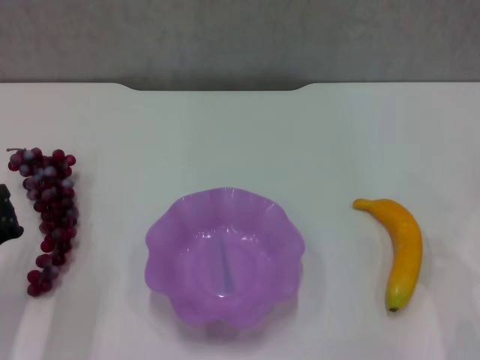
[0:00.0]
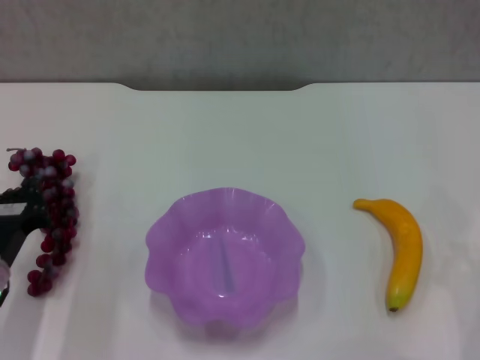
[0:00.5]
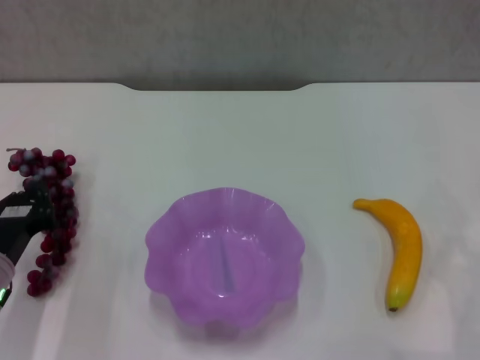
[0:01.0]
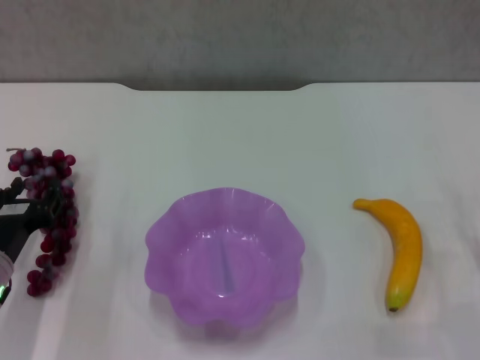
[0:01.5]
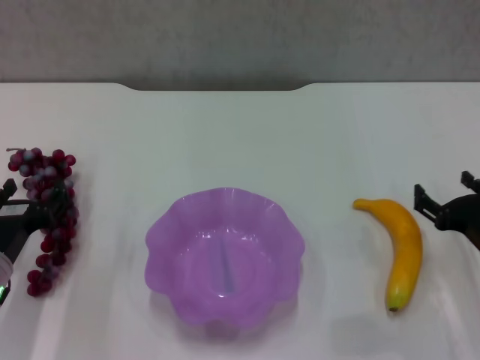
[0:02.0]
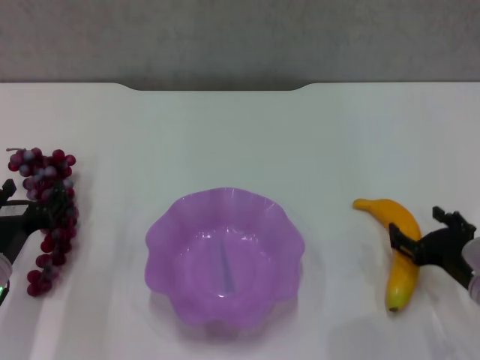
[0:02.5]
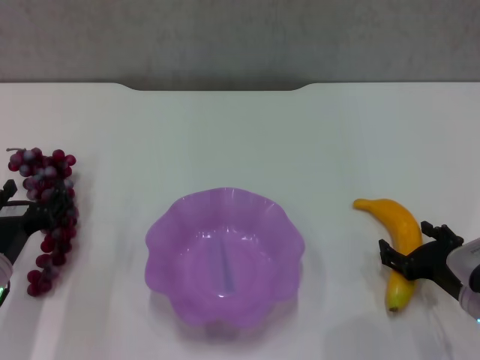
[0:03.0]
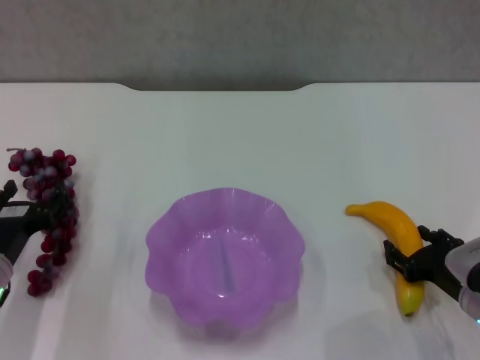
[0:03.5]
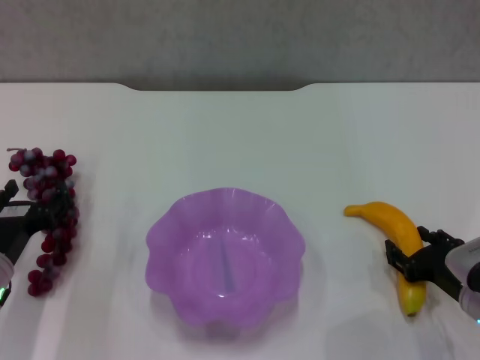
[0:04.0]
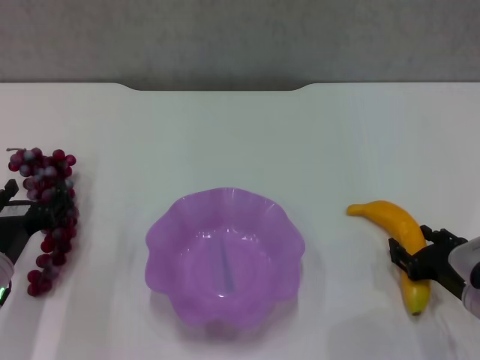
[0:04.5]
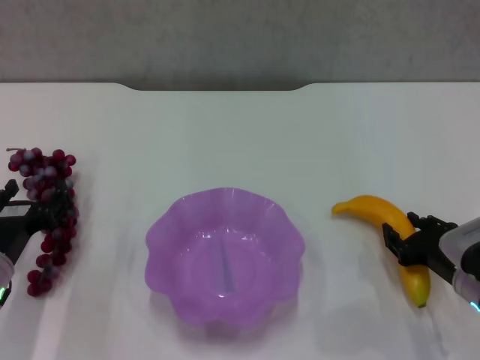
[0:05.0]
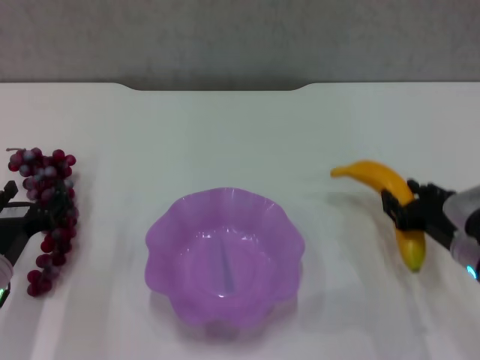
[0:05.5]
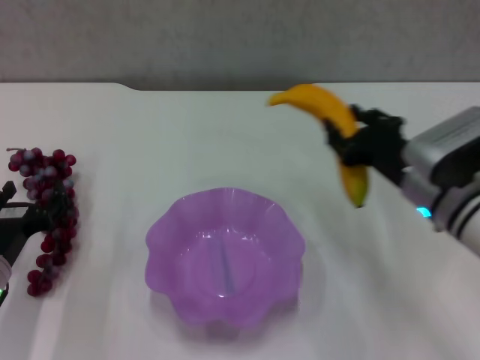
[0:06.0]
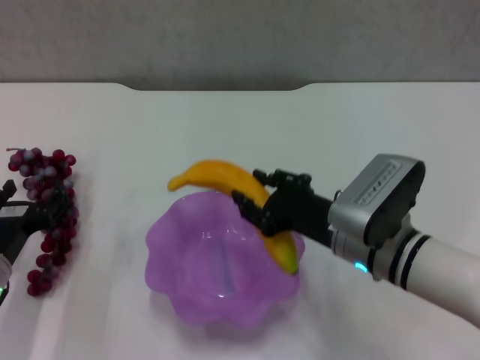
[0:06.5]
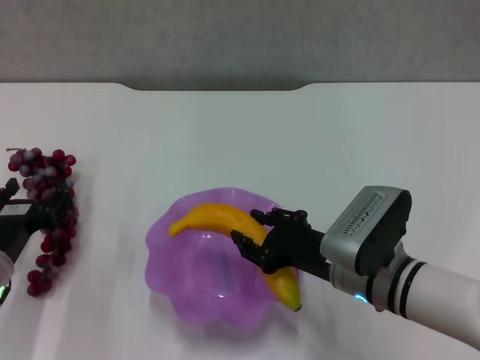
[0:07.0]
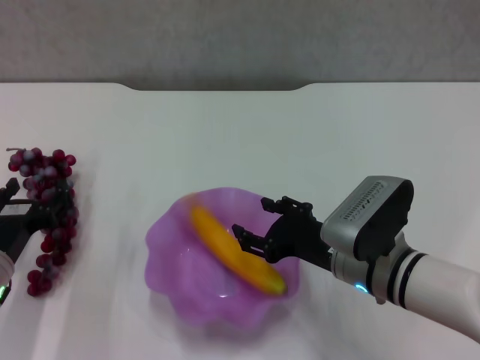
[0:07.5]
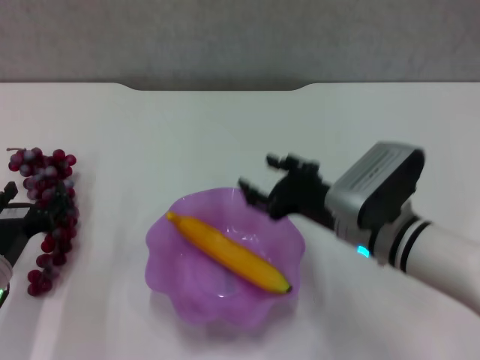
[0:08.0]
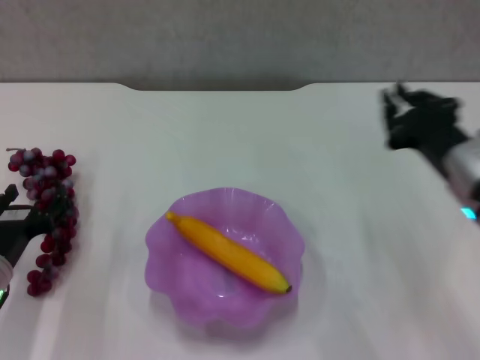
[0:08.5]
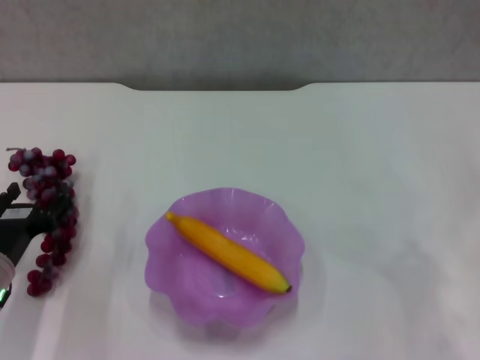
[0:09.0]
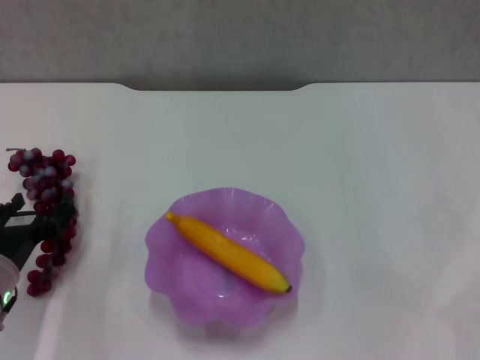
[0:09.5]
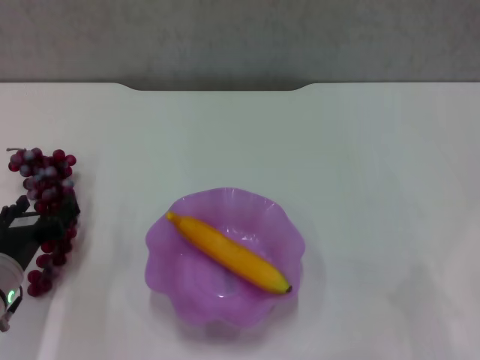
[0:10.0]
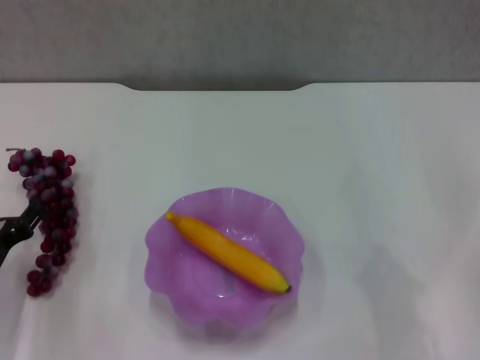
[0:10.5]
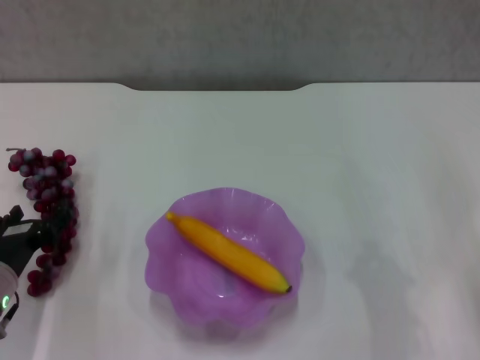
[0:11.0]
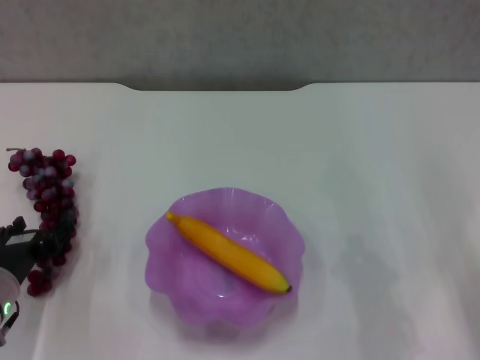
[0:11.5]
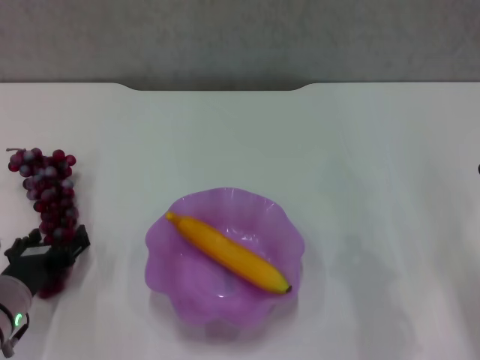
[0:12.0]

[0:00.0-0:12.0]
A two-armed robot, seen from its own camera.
Step, 0:00.0 to 0:04.0: Grasp the banana with right gripper.
Step, 0:04.5 to 0:07.5: Place the banana in the purple plate with right gripper.
0:00.0 to 0:02.0: The left gripper opens up; the right gripper travels to the left by roughly 5 cm, and opens.
0:02.0 to 0:04.0: There are only small adjustments of the grippers.
0:04.0 to 0:06.0: The right gripper is displaced upward, forward and to the left by approximately 15 cm.
0:06.0 to 0:08.0: The right gripper shifts about 5 cm to the left.
0:08.0 to 0:10.0: The right gripper moves to the right and backward, about 20 cm, and closes its fingers.
0:10.0 to 0:12.0: The right gripper moves about 5 cm.

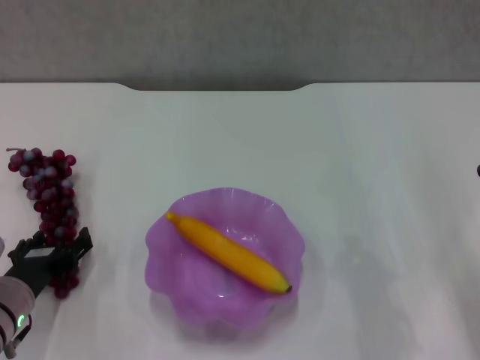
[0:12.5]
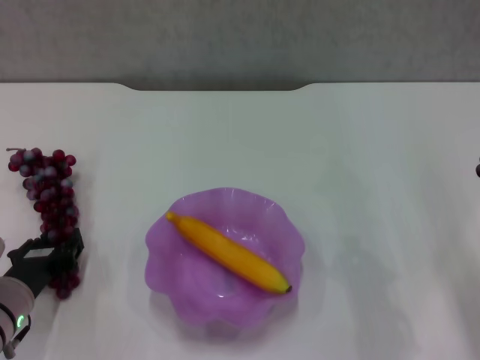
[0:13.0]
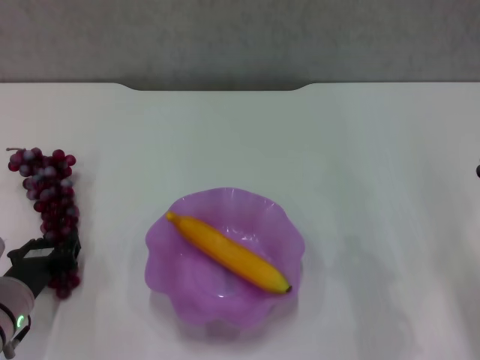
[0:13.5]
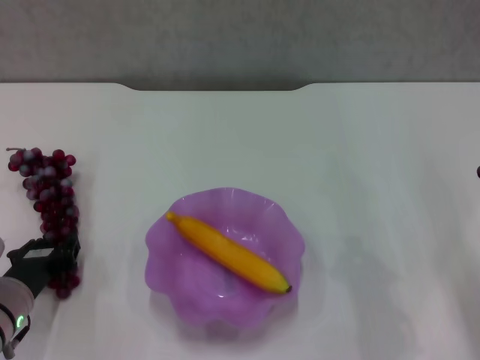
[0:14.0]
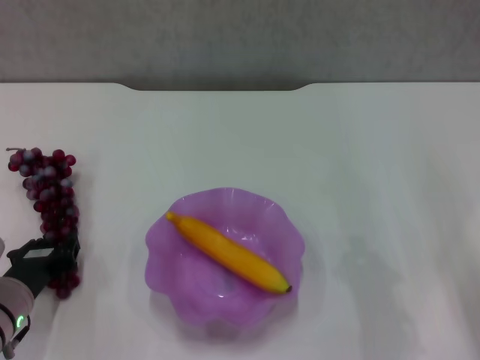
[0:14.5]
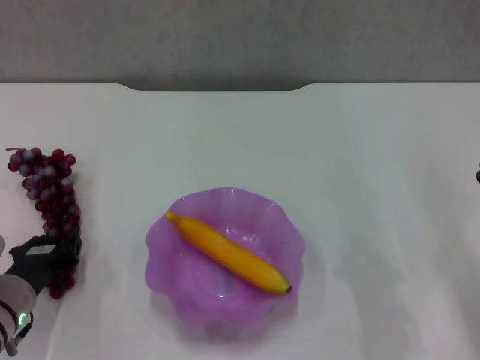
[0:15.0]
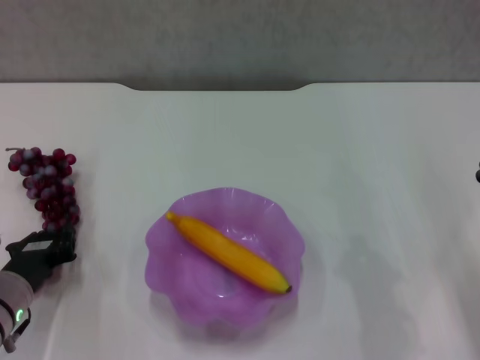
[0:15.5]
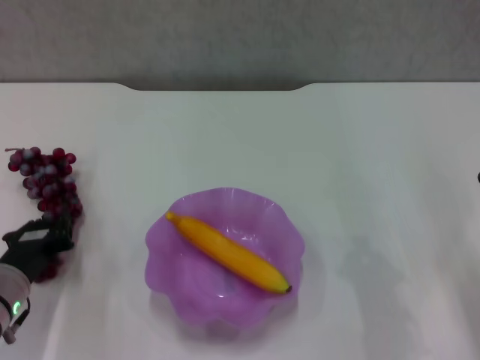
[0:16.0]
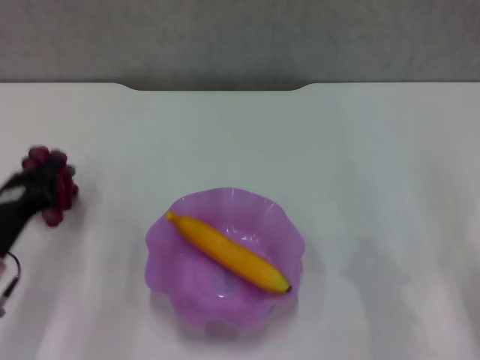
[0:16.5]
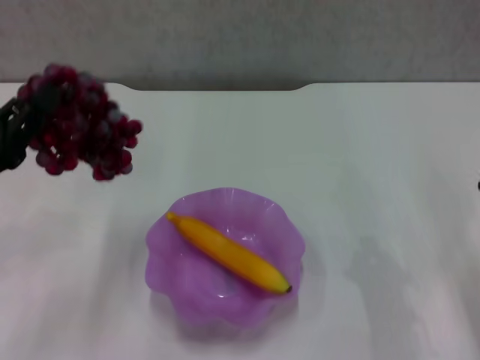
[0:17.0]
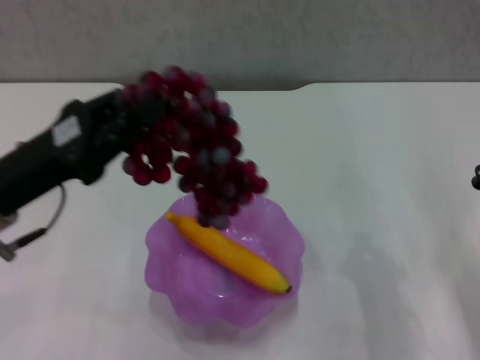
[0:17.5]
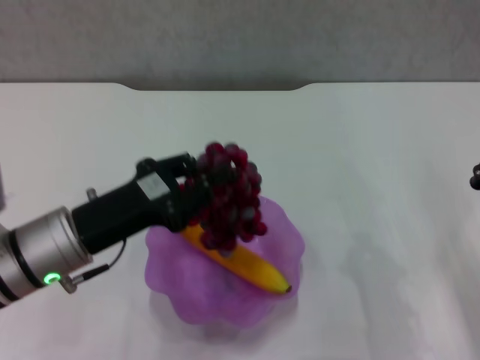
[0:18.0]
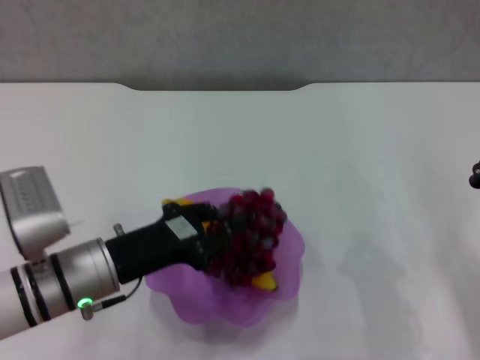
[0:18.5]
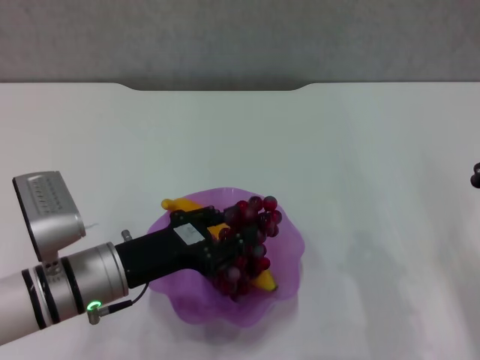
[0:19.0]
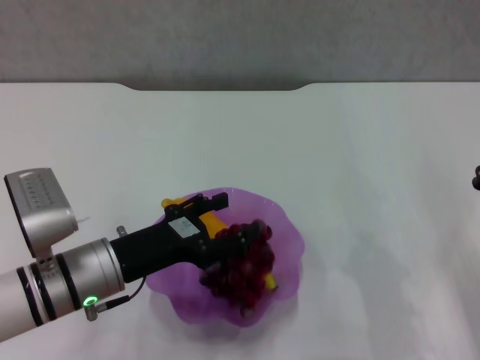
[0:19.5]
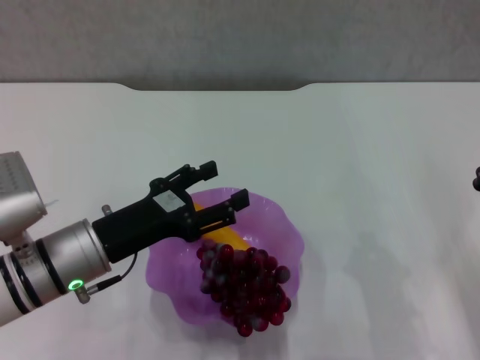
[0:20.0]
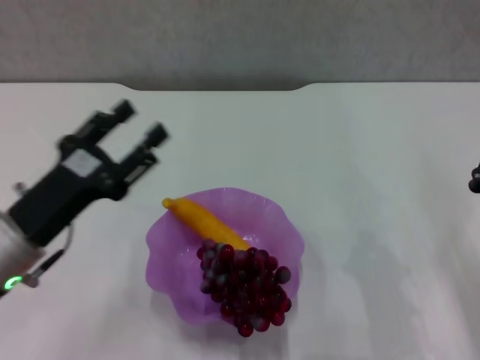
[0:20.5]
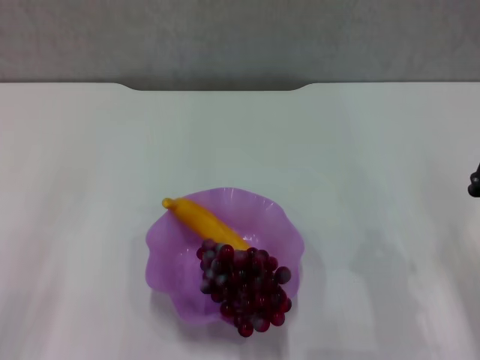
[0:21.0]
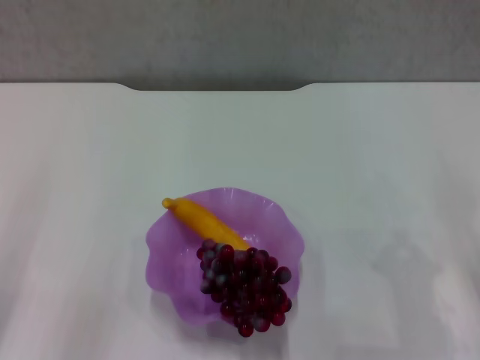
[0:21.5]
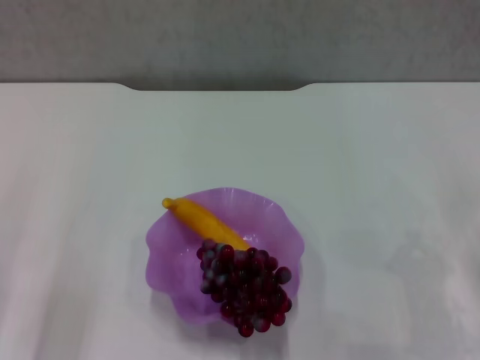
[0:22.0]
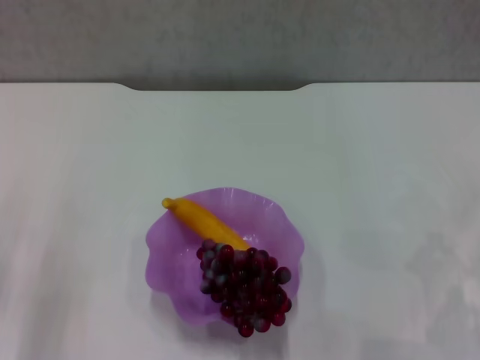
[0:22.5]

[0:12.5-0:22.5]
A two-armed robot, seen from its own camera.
Step, 0:14.5 to 0:20.0: Place the grape in the purple plate with left gripper.
0:12.5 to 0:14.5: The left gripper closes.
0:16.5 to 0:18.5: The left gripper heads to the right, covering approximately 10 cm.
0:18.5 to 0:20.5: The left gripper changes place by some 5 cm, and opens its fingers.
0:20.5 to 0:22.5: The left gripper travels to the left and downward by roughly 10 cm, and closes up, while the right gripper changes place by roughly 5 cm.

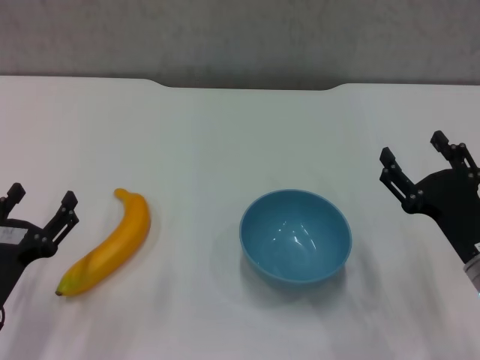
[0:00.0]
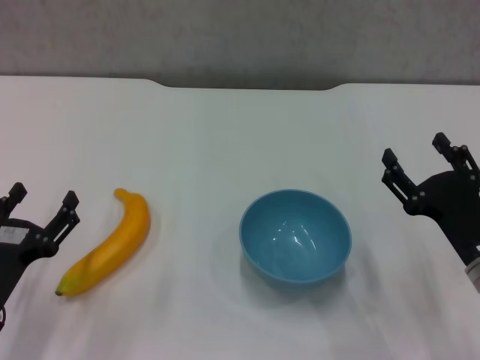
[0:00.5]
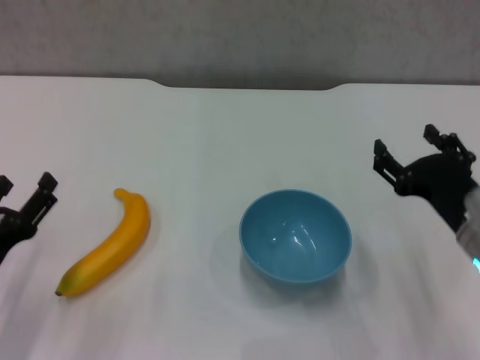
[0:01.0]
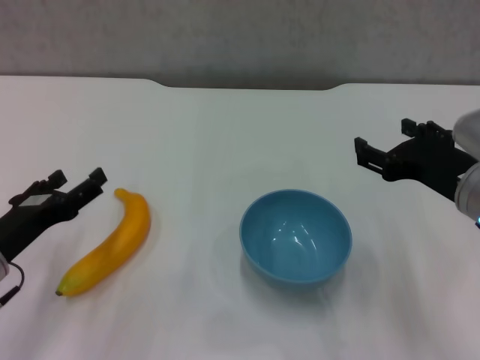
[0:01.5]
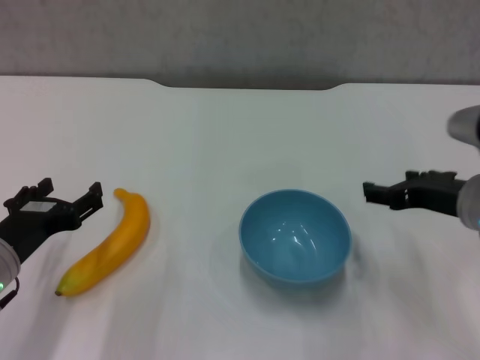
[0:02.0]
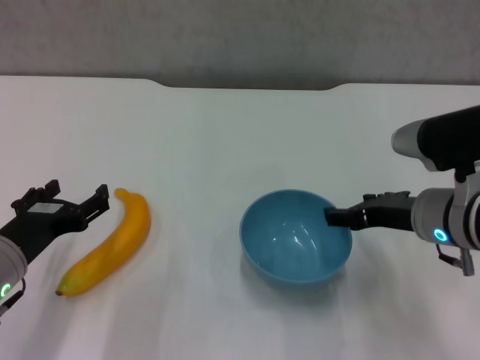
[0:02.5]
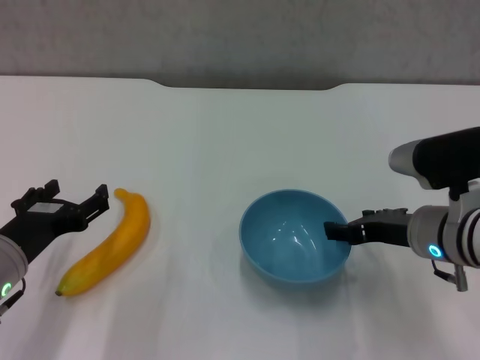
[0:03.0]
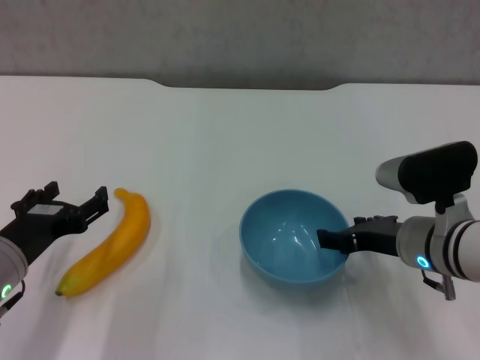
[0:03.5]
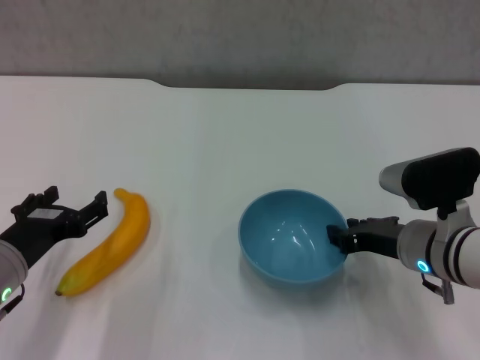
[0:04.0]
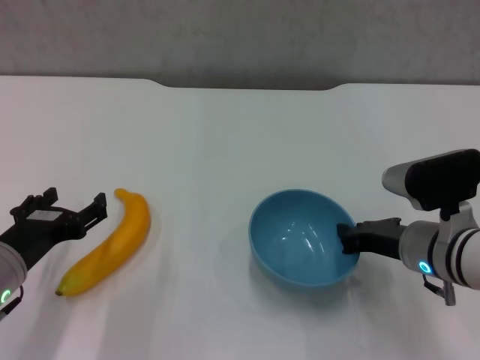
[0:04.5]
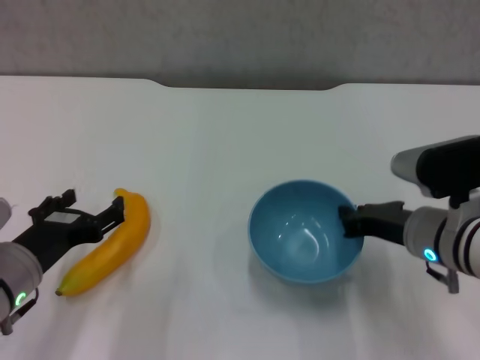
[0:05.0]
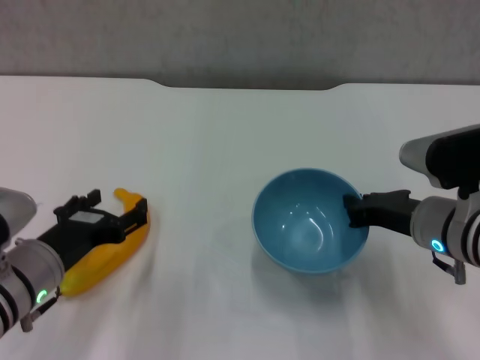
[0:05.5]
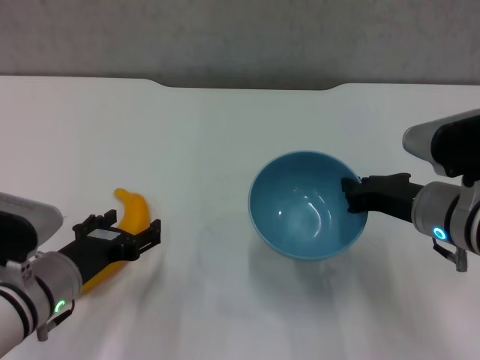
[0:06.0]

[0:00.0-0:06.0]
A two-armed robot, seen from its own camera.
Step, 0:00.0 to 0:04.0: Grasp the blue bowl with right gripper.
Step, 0:04.5 to 0:05.0: Lift the blue bowl with right gripper.
0:00.0 to 0:02.0: The right gripper shifts roughly 10 cm upward and forward. The left gripper shifts some 5 cm upward.
0:02.0 to 0:04.0: The right gripper goes approximately 5 cm downward.
0:04.0 to 0:06.0: The right gripper closes.
